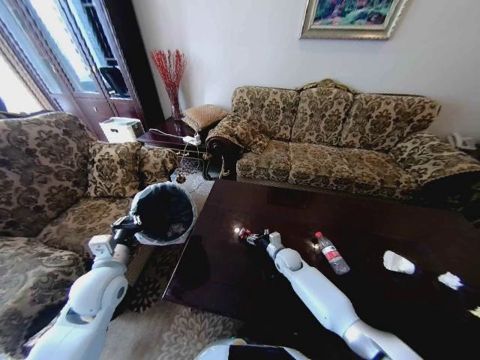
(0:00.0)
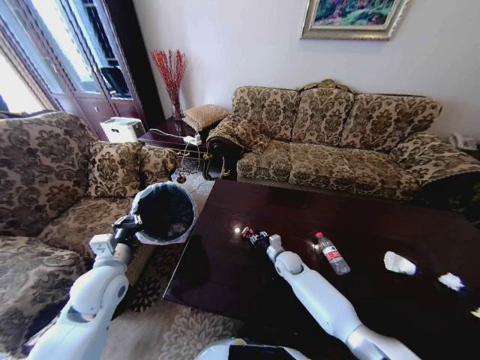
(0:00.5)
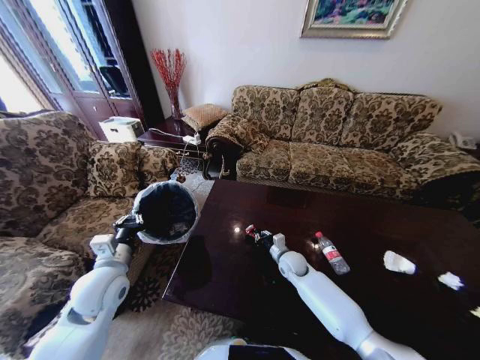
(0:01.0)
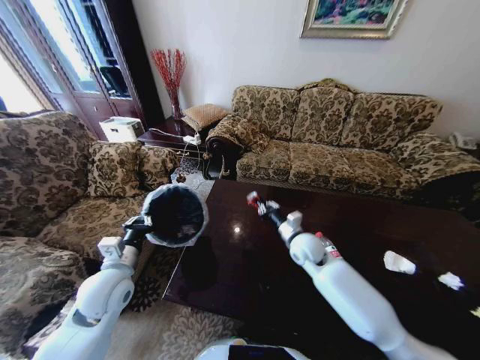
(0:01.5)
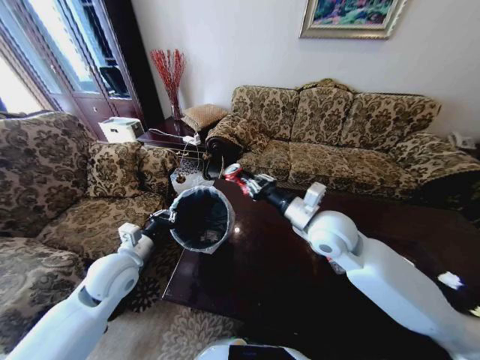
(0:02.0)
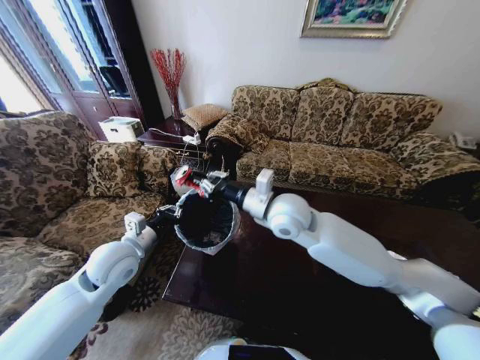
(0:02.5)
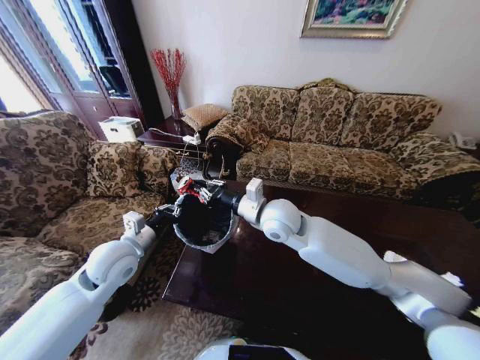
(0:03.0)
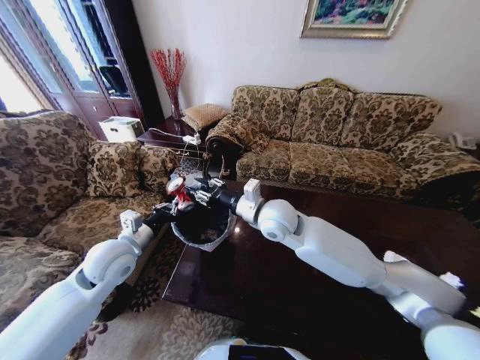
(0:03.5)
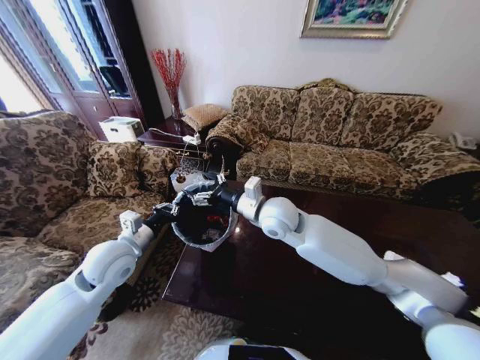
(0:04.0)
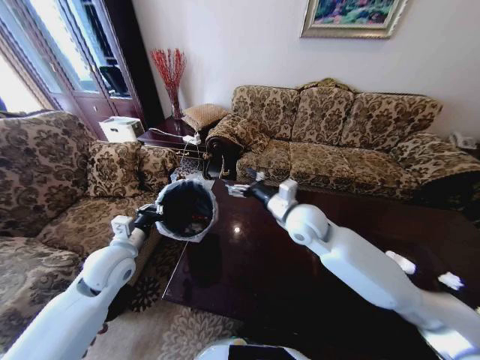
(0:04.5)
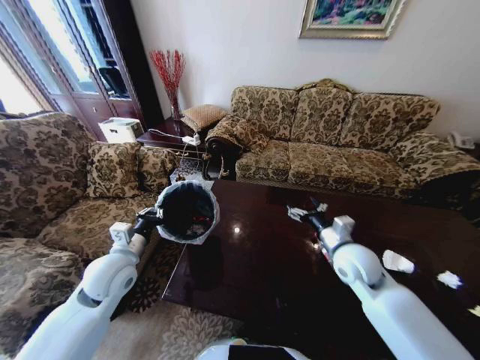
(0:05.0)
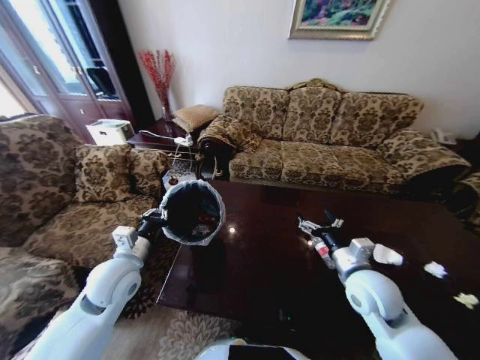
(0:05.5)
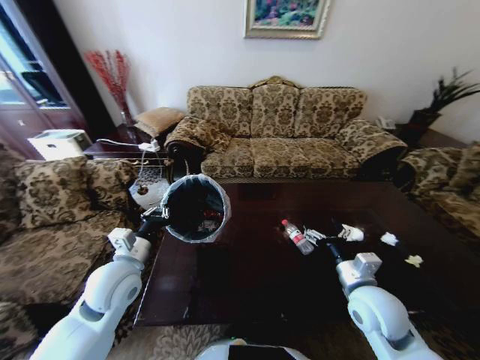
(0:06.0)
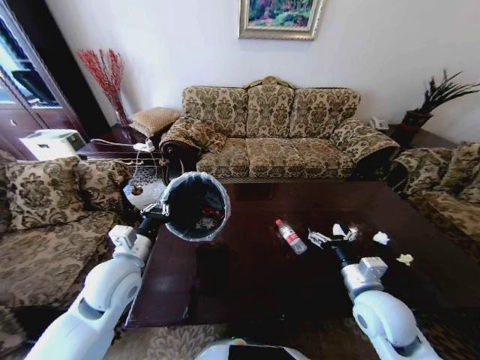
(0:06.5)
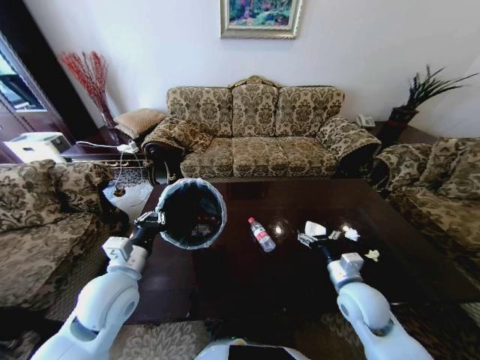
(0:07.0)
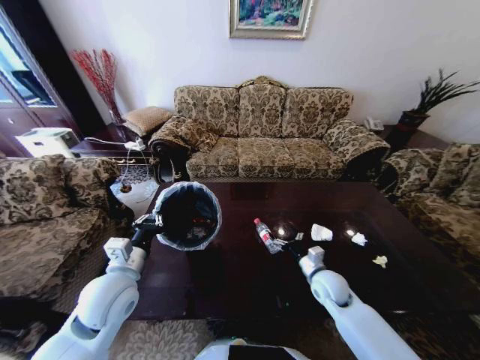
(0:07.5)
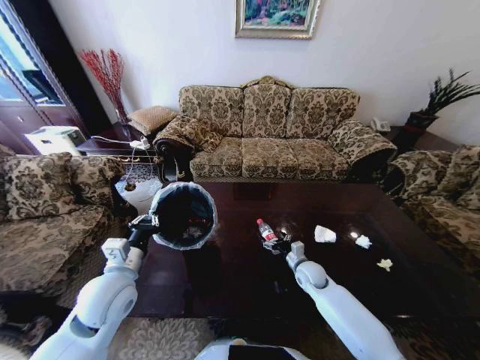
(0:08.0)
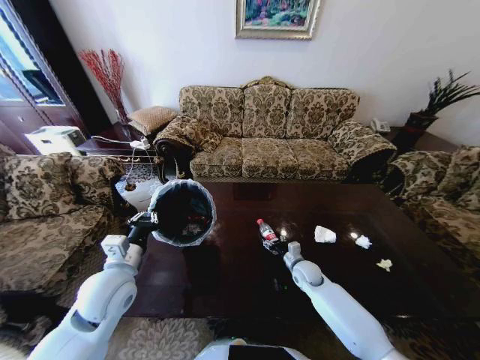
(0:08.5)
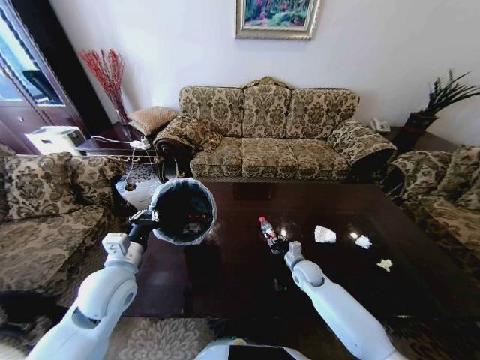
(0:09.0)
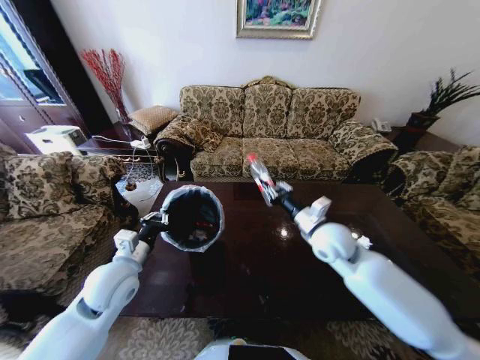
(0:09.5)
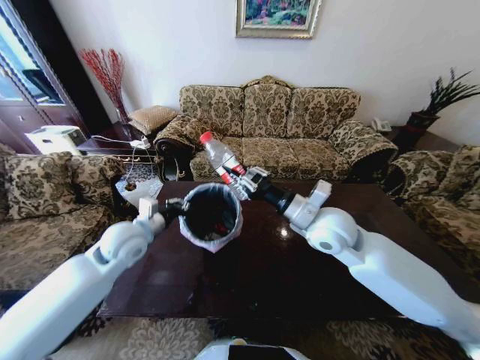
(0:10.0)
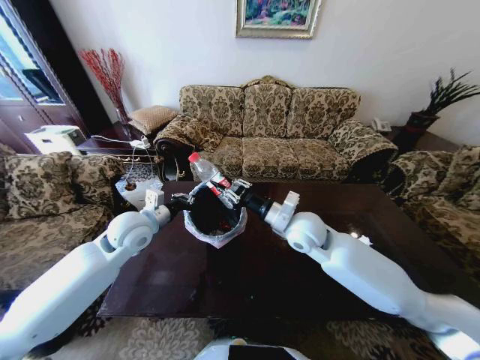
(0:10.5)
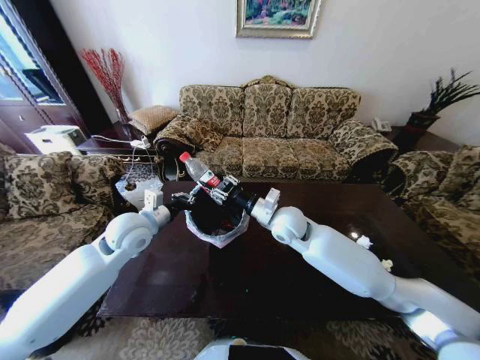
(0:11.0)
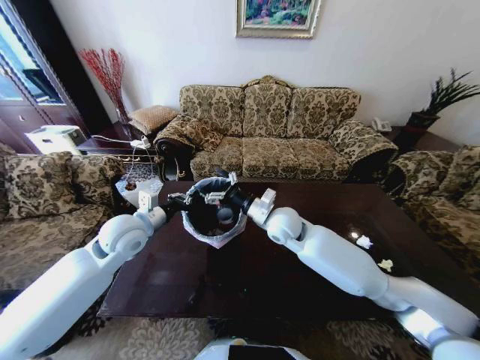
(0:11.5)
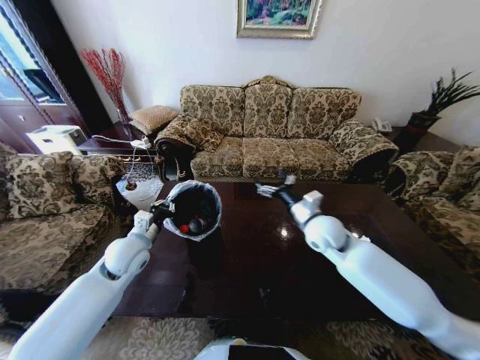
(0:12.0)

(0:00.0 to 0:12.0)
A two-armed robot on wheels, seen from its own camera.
Task of the whole recording: Move to the front of the table and place the trash on the table into the trash bin.
0:00.0 - 0:02.0: The right gripper travels upward by approximately 30 cm, and closes up.
0:02.0 - 0:04.0: The right gripper is displaced to the left by roughly 10 cm, and opens up.
0:04.0 - 0:06.0: The left gripper shifts by about 5 cm. Meanwhile the right gripper travels to the right, backward and downward by about 30 cm.
0:06.0 - 0:08.0: The right gripper shifts roughly 25 cm downward and forward.
0:08.0 - 0:10.0: The left gripper travels forward by approximately 10 cm. Meanwhile the right gripper heads upward, covering some 30 cm, and closes its fingers.
0:10.0 - 0:12.0: Both grippers move downward, approximately 5 cm. The right gripper travels to the left and back again, approximately 10 cm each way, and opens its fingers.

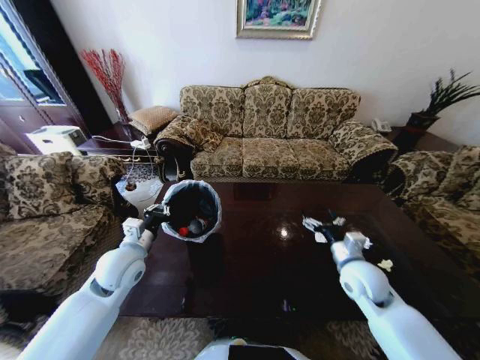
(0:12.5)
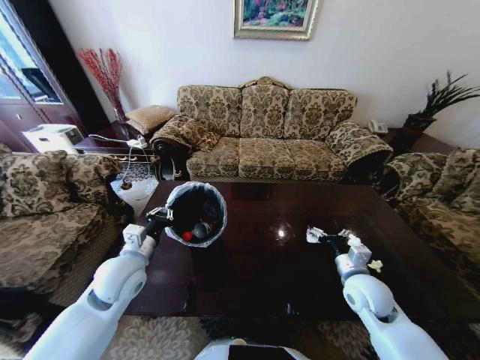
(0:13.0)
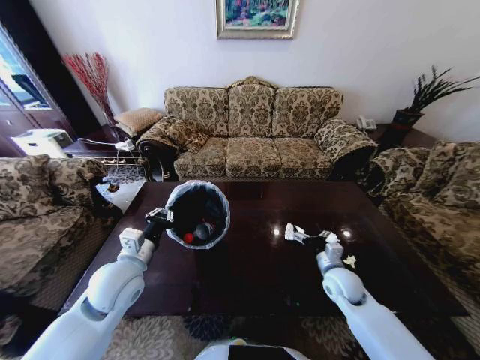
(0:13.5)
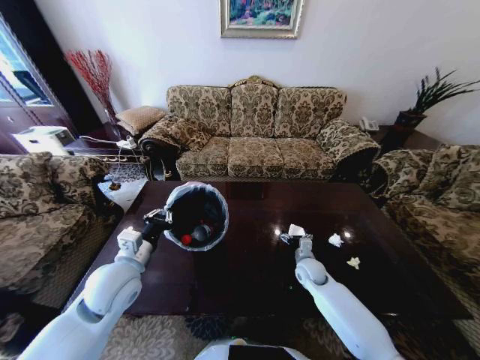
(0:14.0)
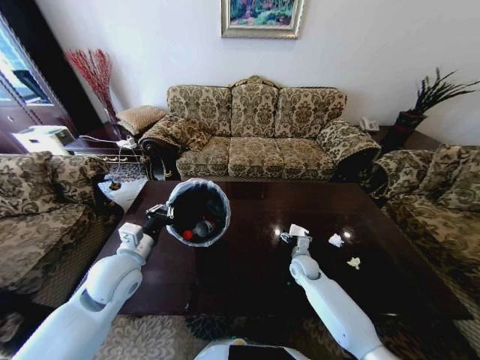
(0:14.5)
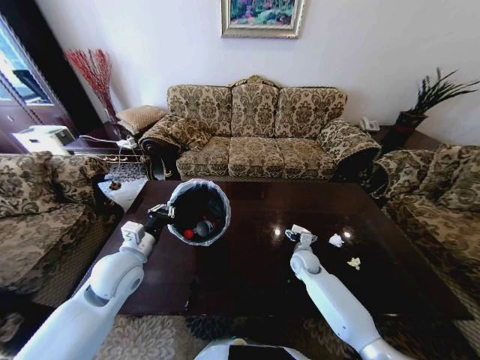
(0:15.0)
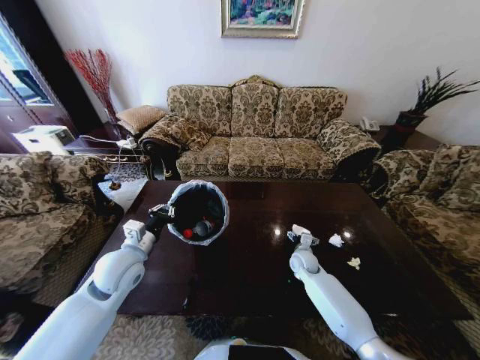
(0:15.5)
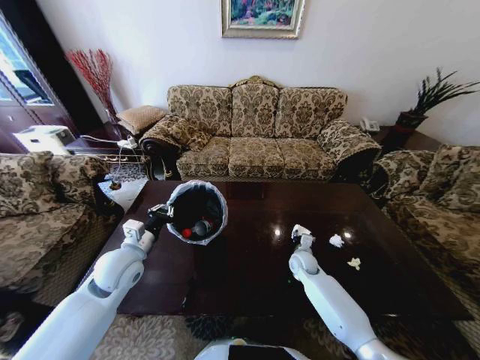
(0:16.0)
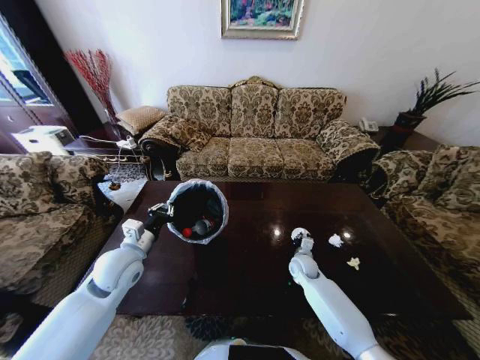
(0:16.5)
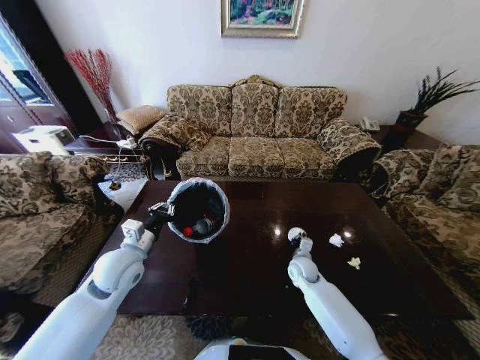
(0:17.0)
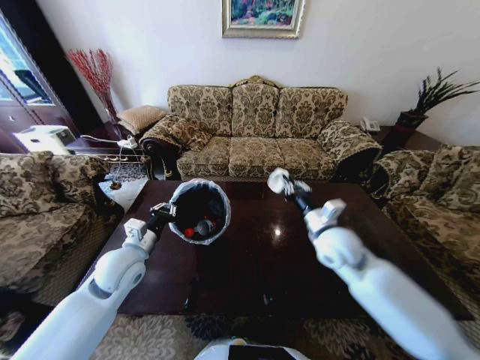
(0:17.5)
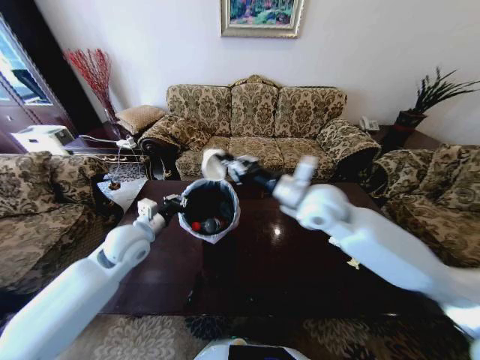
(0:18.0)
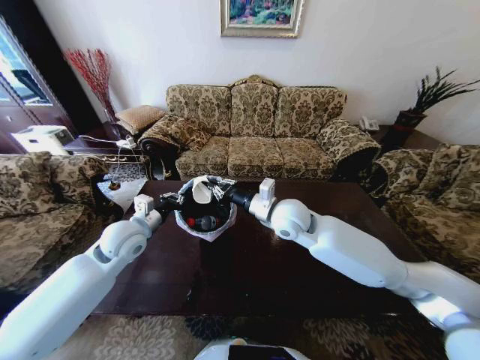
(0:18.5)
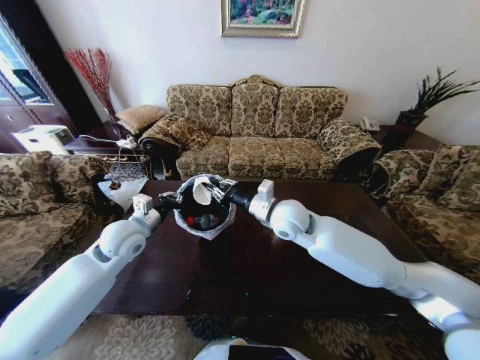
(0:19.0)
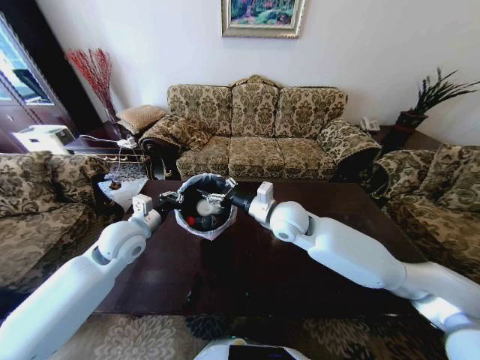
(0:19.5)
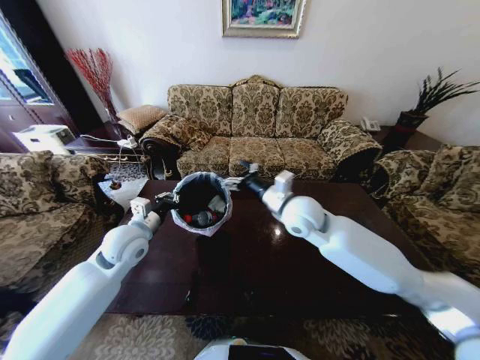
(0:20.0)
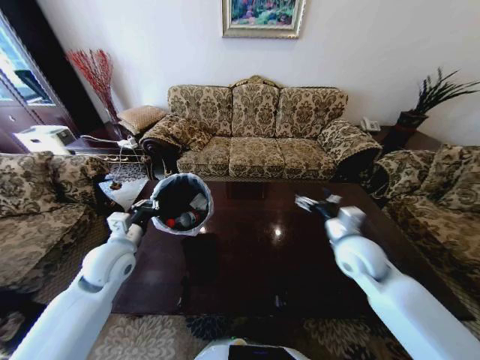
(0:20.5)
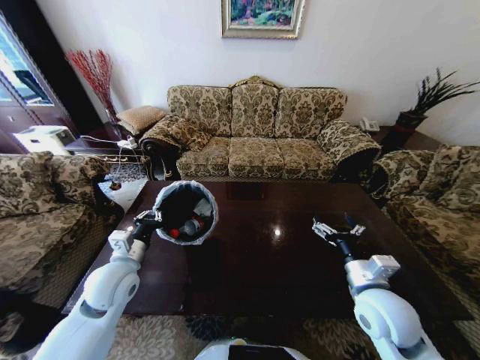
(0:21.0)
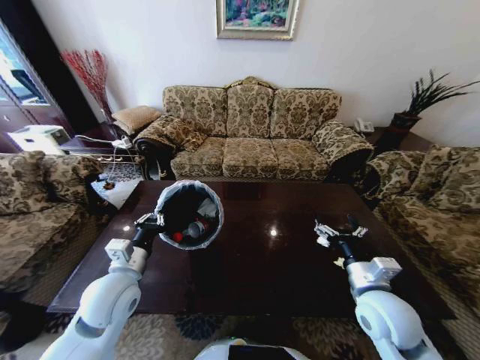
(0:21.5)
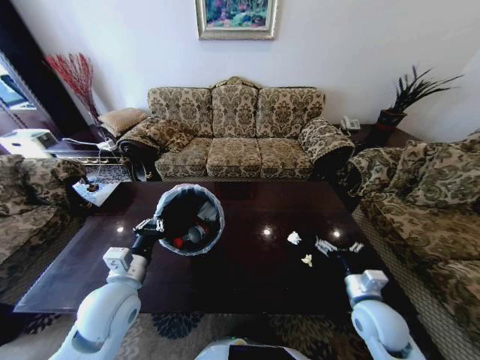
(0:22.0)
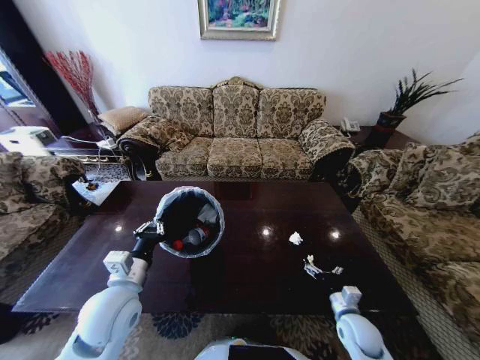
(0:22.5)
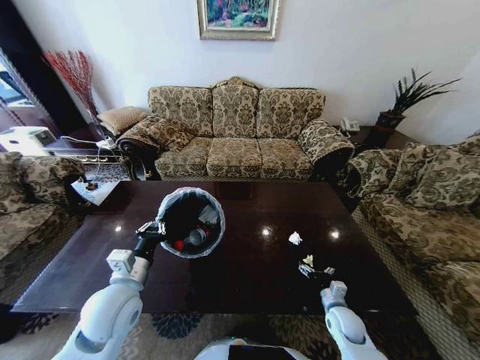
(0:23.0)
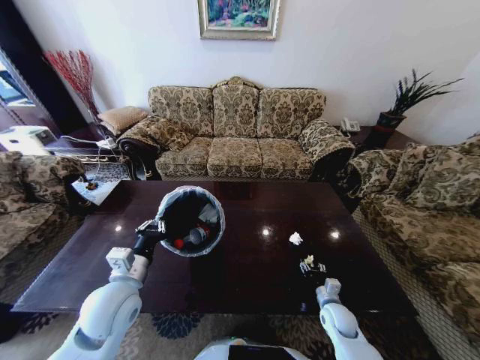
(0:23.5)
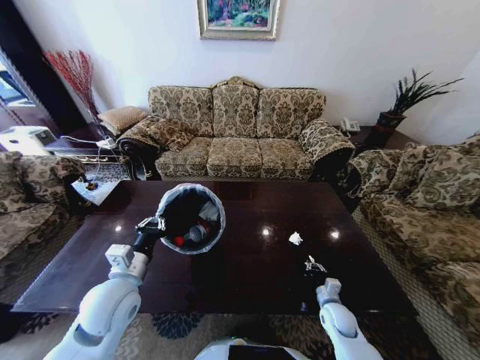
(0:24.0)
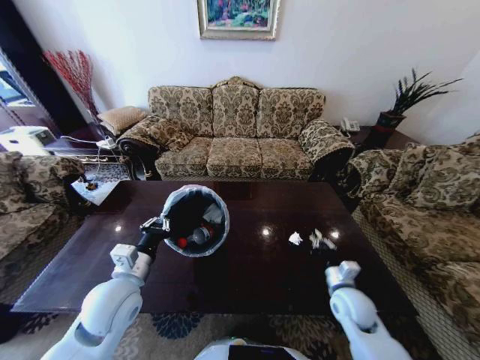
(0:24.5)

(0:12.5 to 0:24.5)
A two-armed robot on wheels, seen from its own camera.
Task of the whole recording: Move to the front of the table and place the trash on the table into the trash bin.
0:12.5 - 0:14.5: The right gripper shifts roughly 20 cm downward and forward.
0:14.5 - 0:16.5: The right gripper closes up.
0:16.5 - 0:18.5: The right gripper is displaced upward and to the left by approximately 35 cm. Meanwhile the left gripper moves forward, some 5 cm.
0:18.5 - 0:20.5: The left gripper heads backward, covering roughly 5 cm; the right gripper shifts about 20 cm to the right, and opens up.
0:20.5 - 0:22.5: The left gripper is displaced backward and to the right by some 10 cm; the right gripper moves downward and backward, some 25 cm.
0:22.5 - 0:24.5: The right gripper goes about 10 cm upward, and closes.

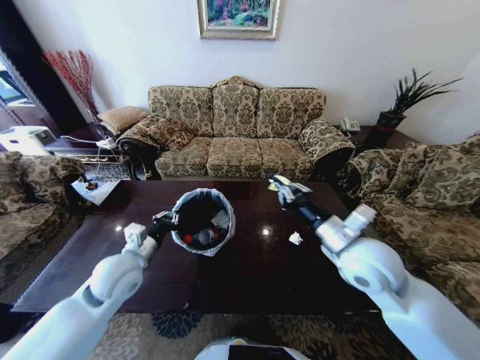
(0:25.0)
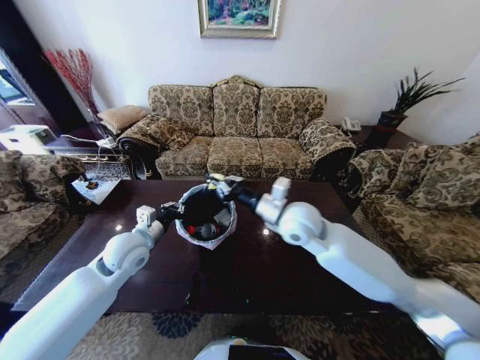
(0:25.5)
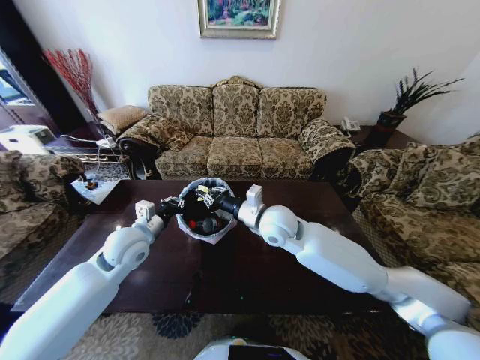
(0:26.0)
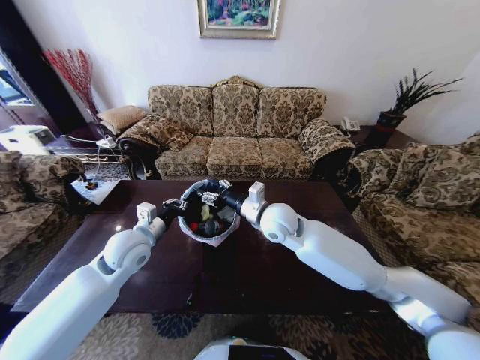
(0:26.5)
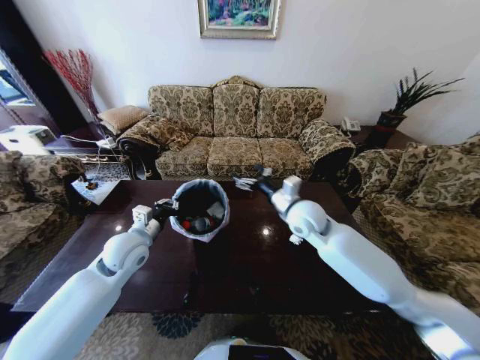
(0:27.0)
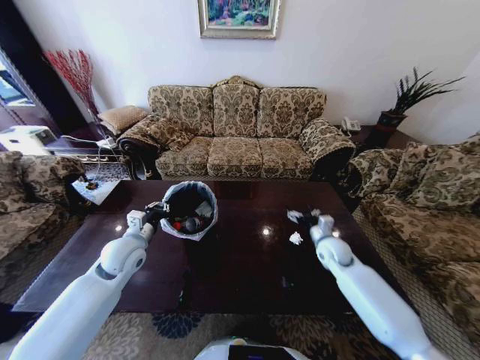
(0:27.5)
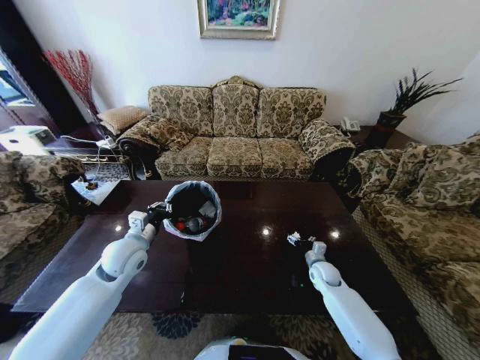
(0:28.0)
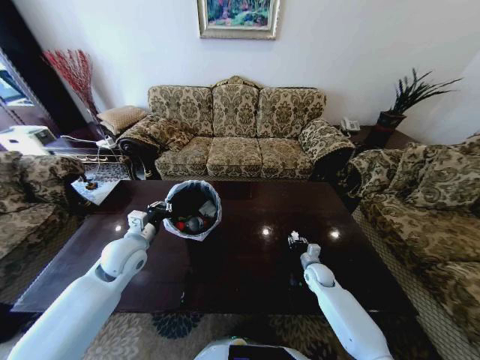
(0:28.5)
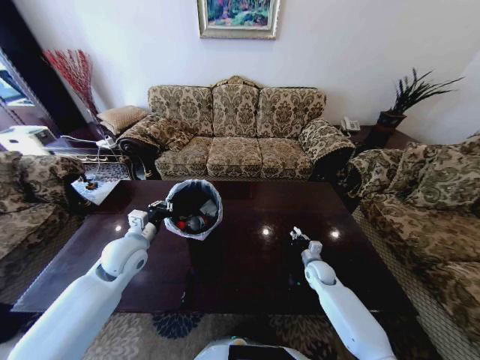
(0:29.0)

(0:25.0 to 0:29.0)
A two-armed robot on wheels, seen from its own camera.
Task of the whole recording: Move to the front of the table and place the trash on the table into the trash bin.
0:25.0 - 0:27.0: The left gripper goes approximately 5 cm forward. The right gripper heads forward and to the left, covering roughly 15 cm, and opens up.
0:27.0 - 0:29.0: The right gripper travels downward and to the right by about 35 cm, and closes up.
